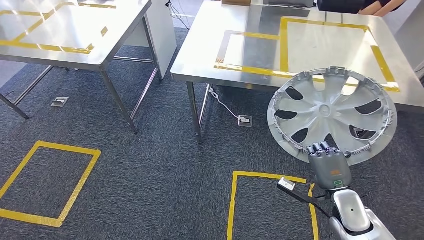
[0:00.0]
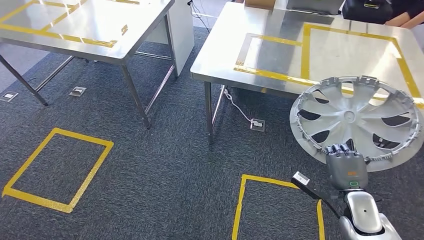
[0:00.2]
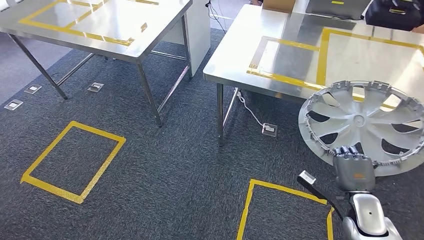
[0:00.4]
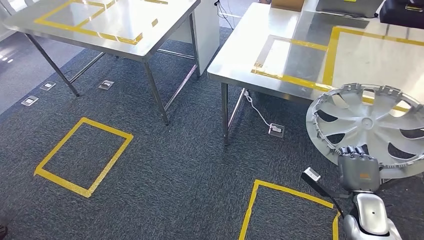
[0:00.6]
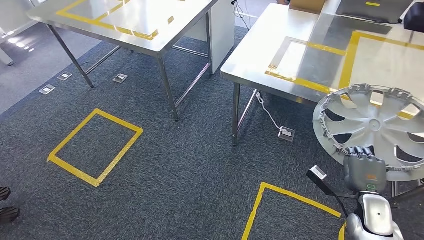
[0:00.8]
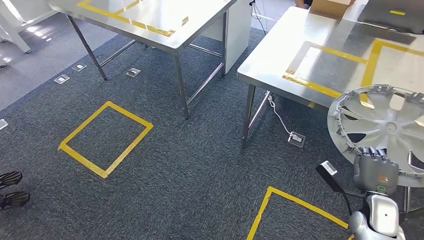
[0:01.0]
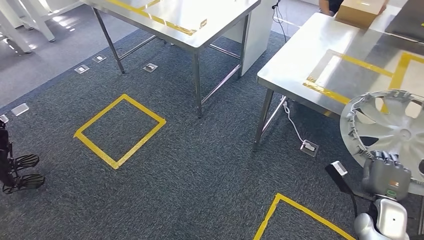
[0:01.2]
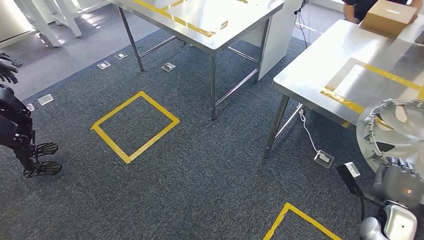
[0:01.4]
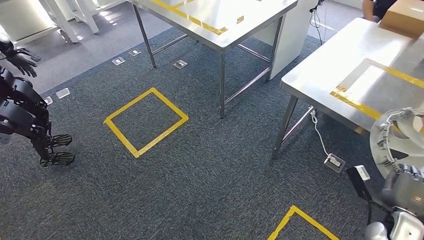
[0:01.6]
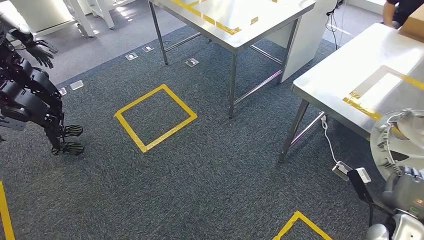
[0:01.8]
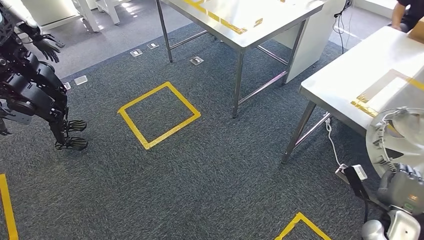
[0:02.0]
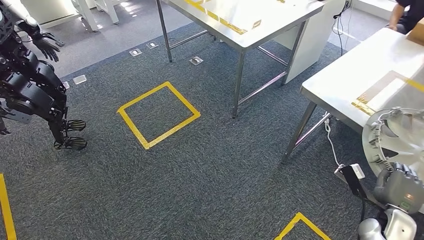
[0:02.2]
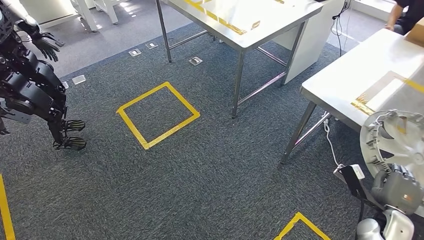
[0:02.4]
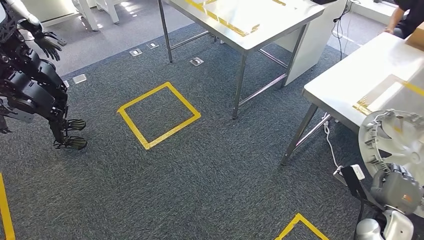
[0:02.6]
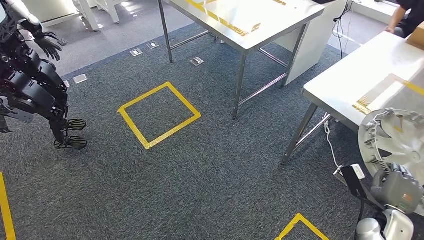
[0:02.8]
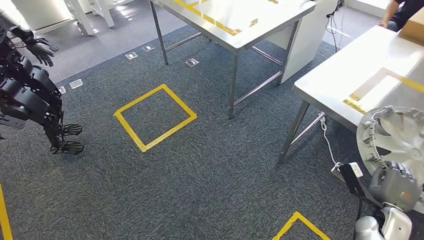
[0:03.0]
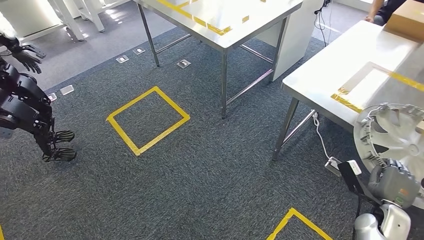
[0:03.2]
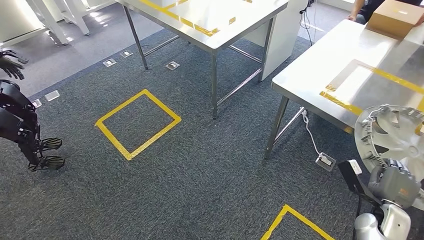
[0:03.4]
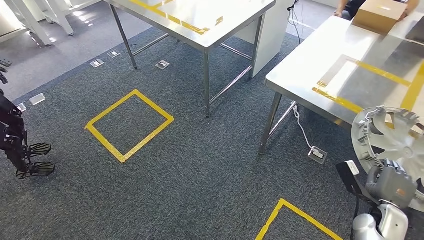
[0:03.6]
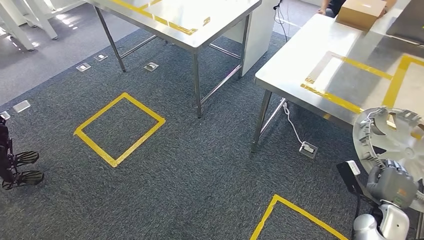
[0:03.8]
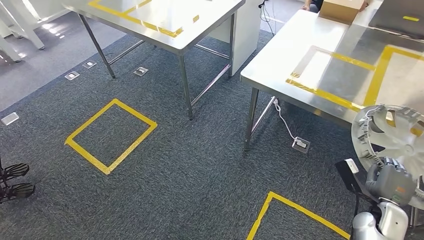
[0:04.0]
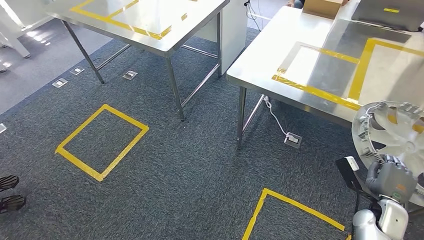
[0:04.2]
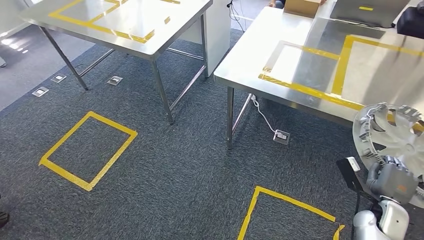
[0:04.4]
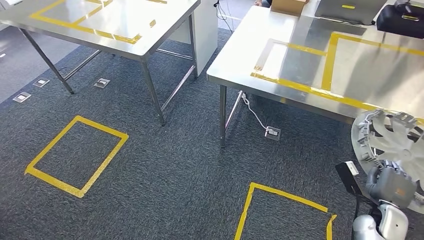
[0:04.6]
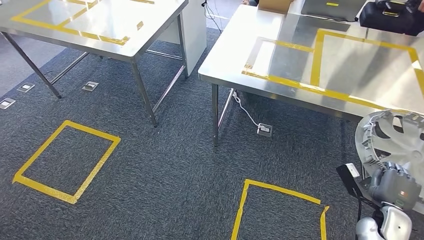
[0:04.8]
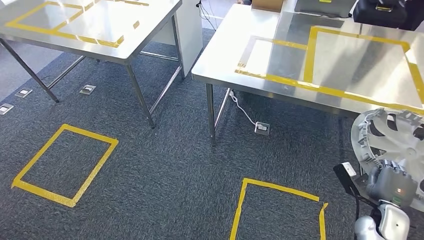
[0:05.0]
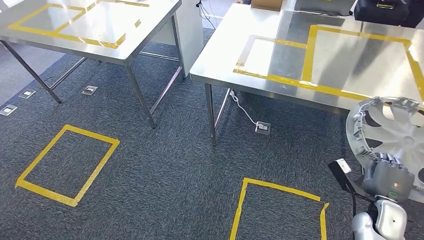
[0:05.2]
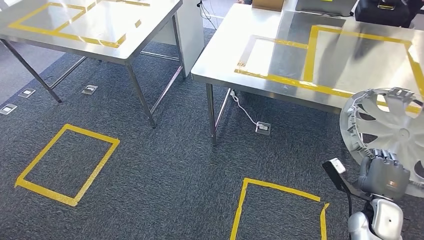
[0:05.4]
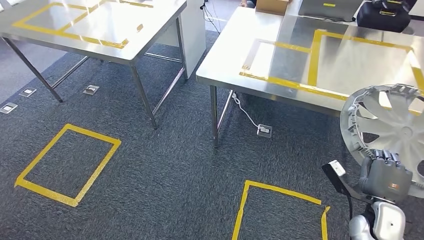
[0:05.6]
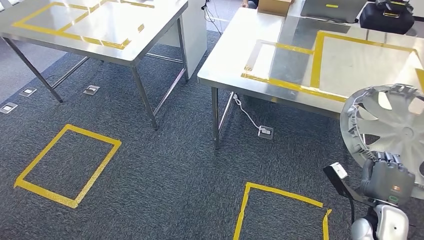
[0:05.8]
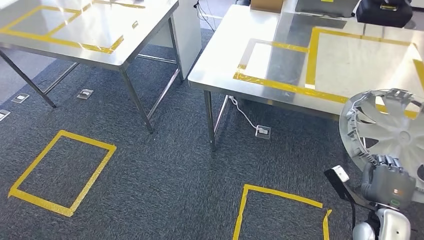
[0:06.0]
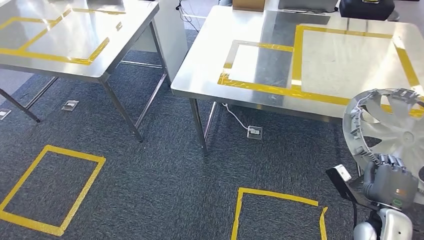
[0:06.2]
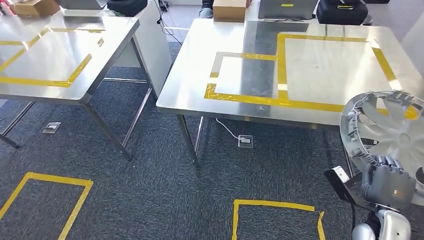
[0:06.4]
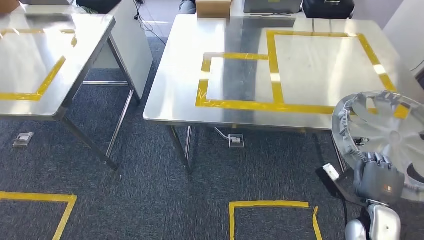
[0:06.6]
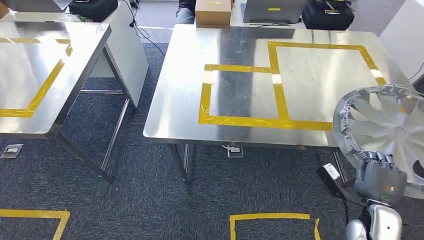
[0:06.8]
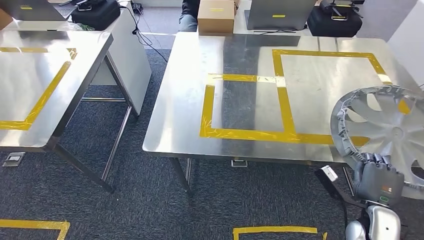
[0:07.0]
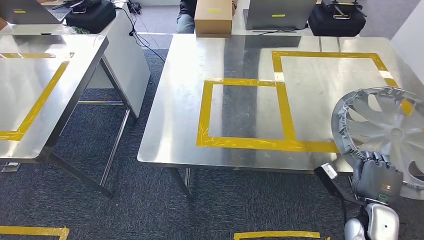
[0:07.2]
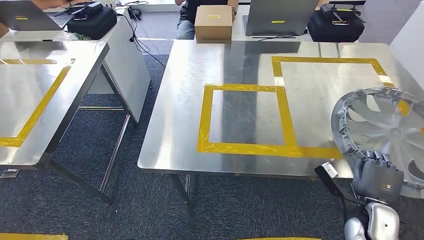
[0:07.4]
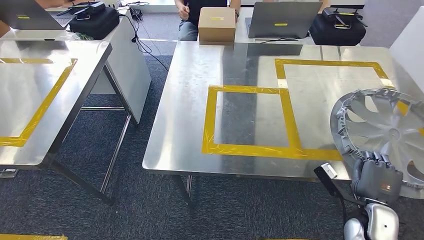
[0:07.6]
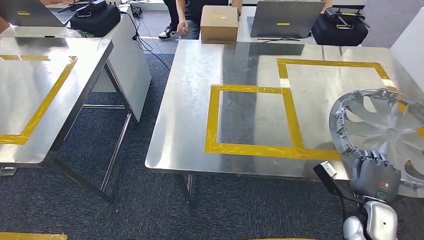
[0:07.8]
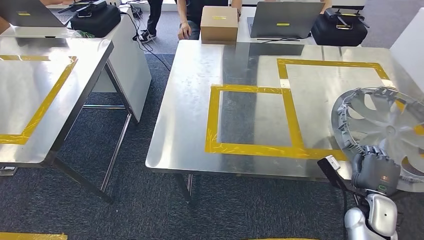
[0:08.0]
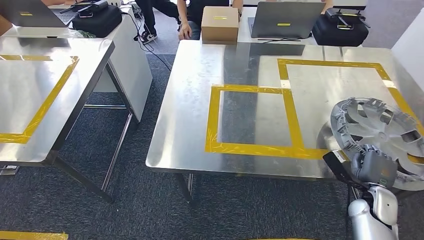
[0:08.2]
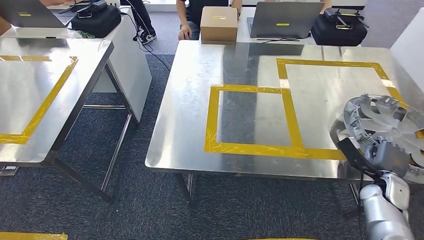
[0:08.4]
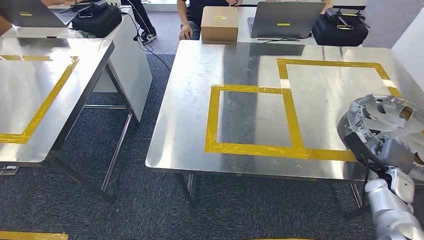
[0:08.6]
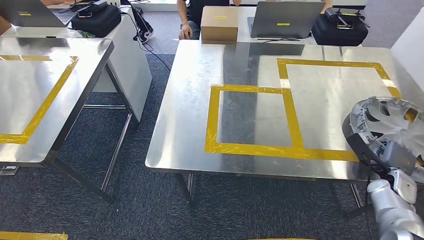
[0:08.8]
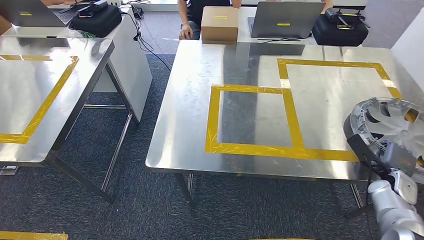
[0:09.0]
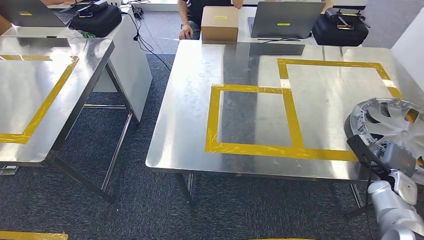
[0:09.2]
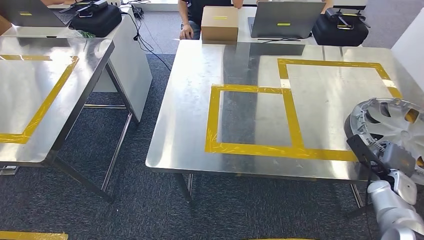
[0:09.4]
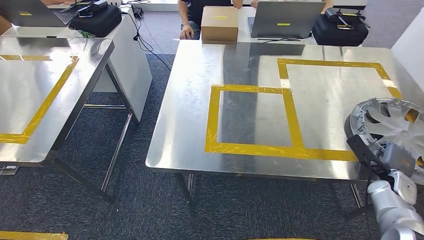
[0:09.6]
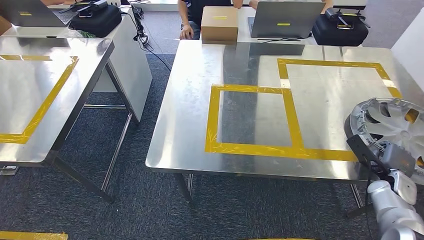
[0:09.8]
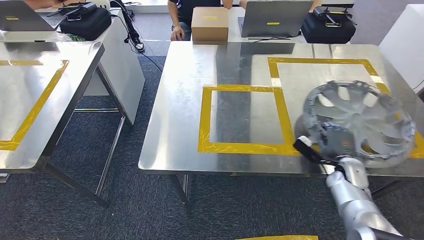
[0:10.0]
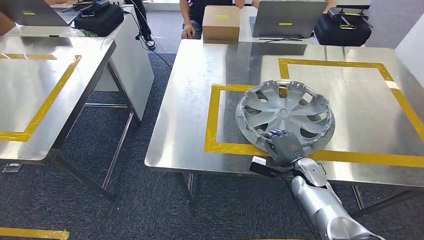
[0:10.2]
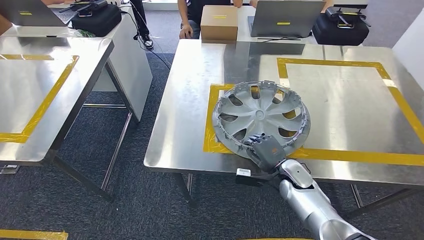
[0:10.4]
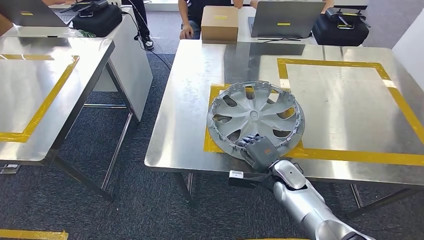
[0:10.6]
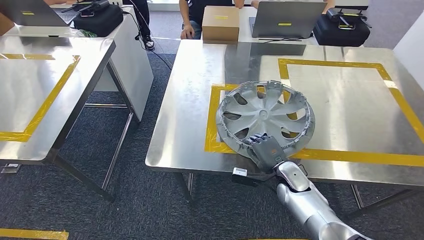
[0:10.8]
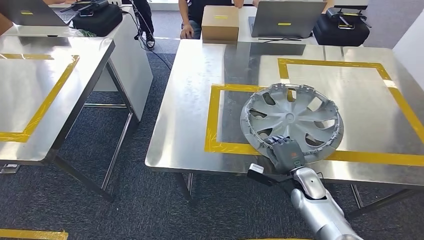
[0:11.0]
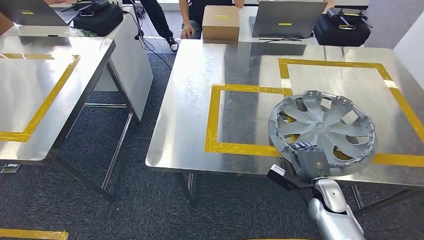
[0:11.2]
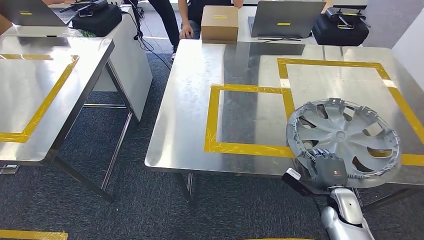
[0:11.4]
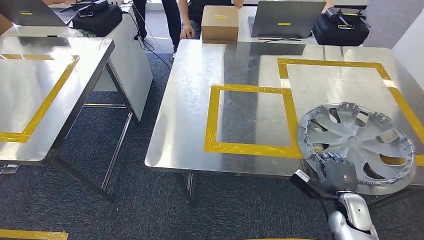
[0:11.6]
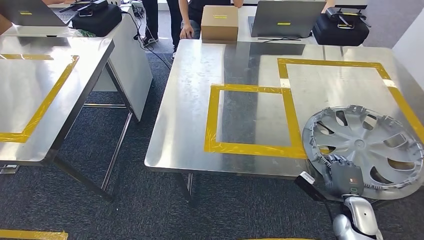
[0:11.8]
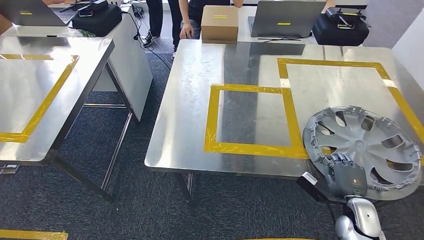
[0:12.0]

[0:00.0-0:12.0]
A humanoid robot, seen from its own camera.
Step, 0:00.0 to 0:06.8: Bring the small component to the front of the workbench.
0:07.6 to 0:09.0: The right hand goes about 15 cm to the right and forward.
0:10.4 to 0:12.0: The right hand heads to the right and backward, covering roughly 20 cm.

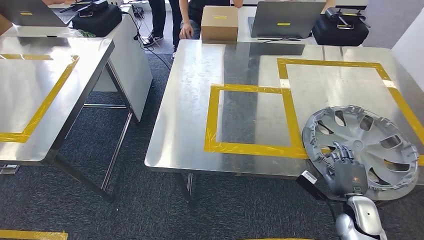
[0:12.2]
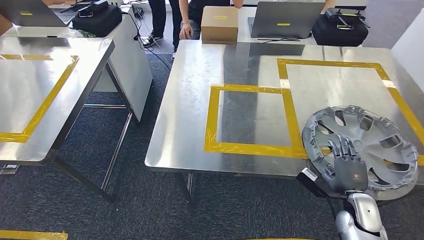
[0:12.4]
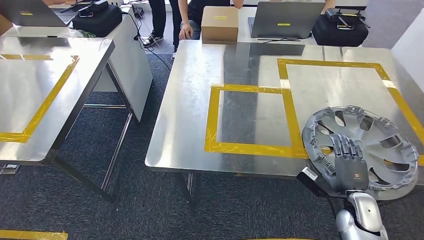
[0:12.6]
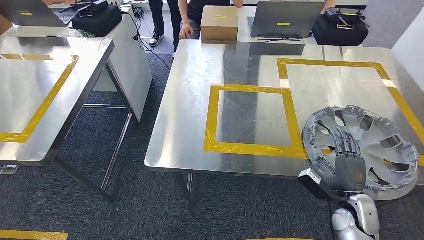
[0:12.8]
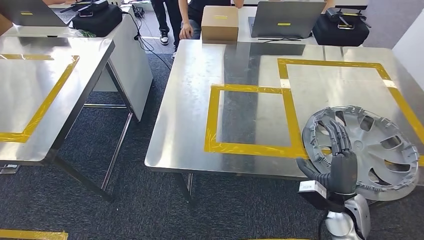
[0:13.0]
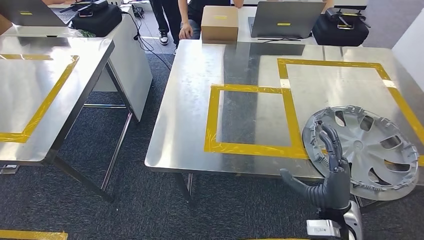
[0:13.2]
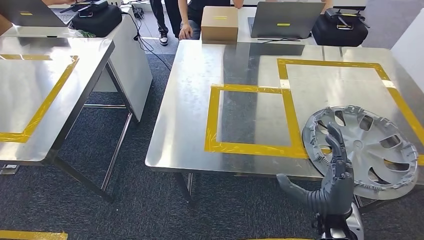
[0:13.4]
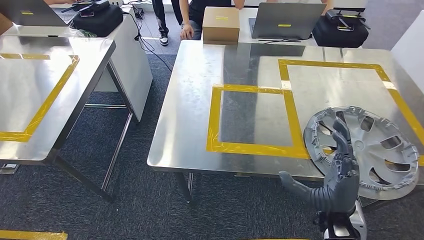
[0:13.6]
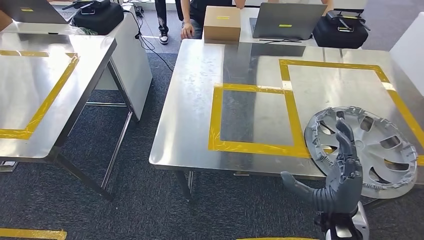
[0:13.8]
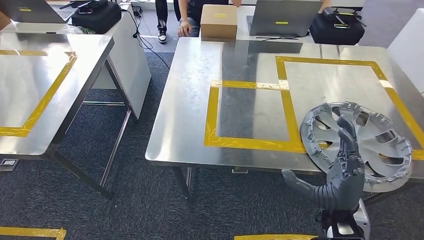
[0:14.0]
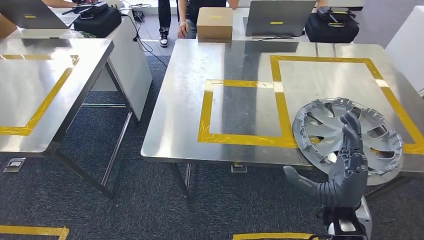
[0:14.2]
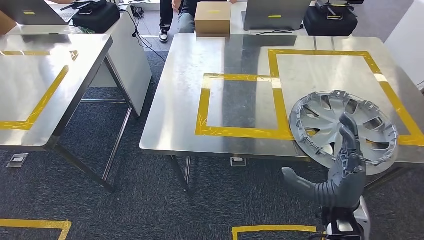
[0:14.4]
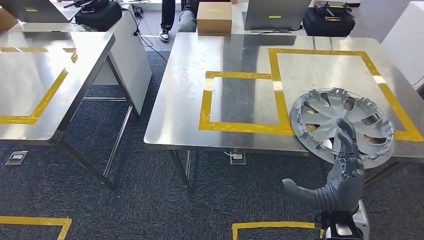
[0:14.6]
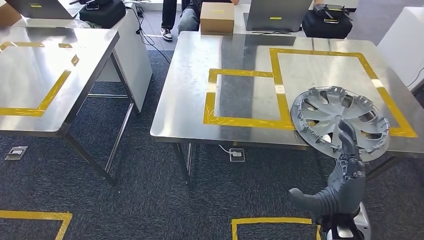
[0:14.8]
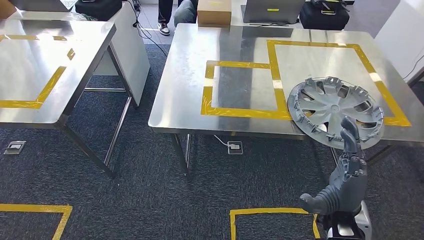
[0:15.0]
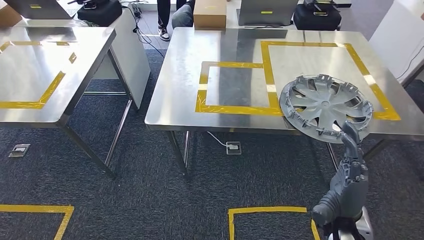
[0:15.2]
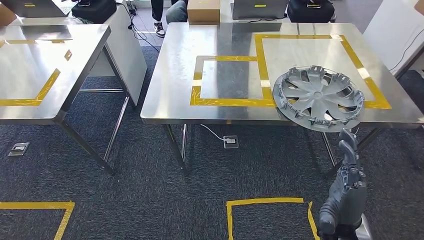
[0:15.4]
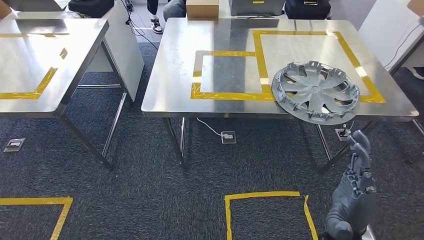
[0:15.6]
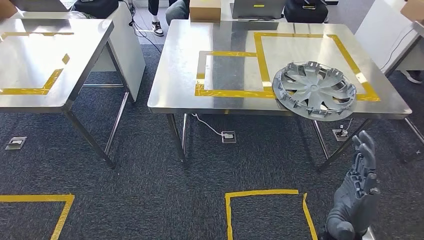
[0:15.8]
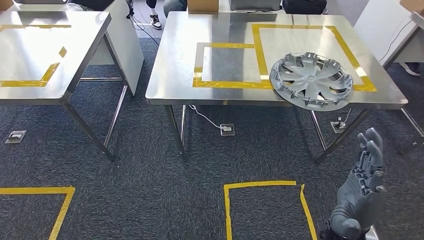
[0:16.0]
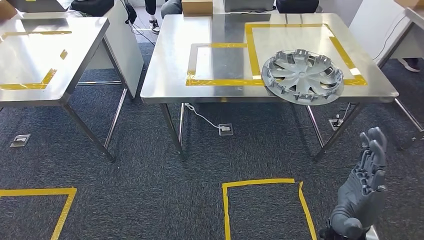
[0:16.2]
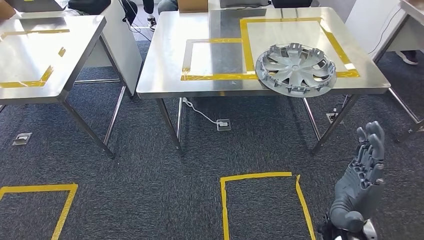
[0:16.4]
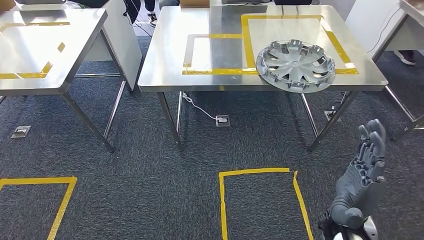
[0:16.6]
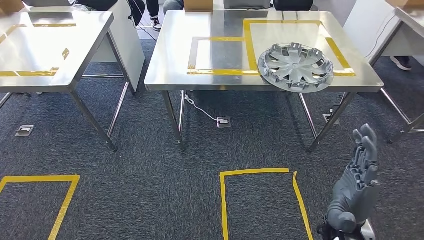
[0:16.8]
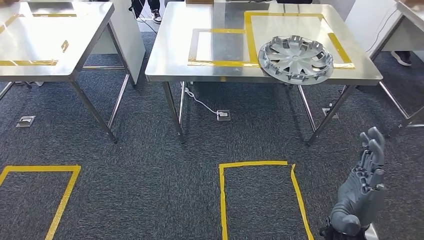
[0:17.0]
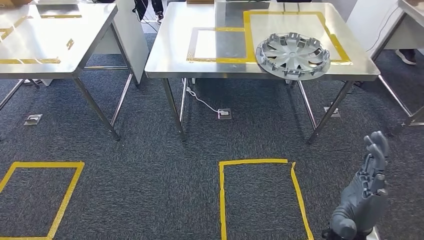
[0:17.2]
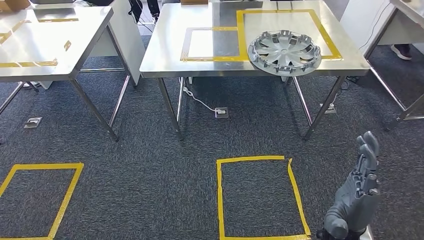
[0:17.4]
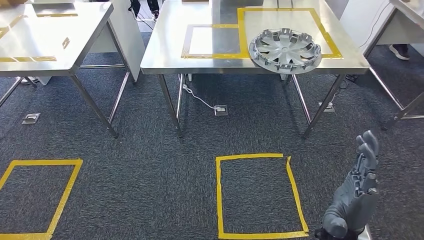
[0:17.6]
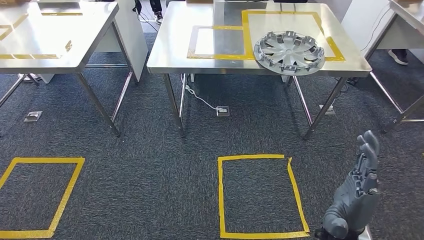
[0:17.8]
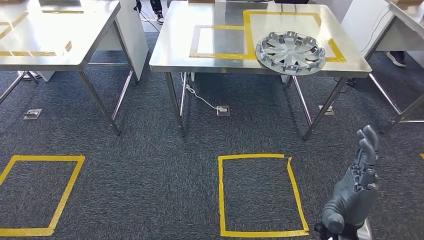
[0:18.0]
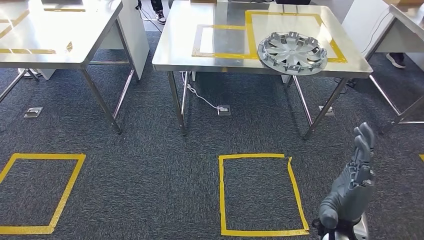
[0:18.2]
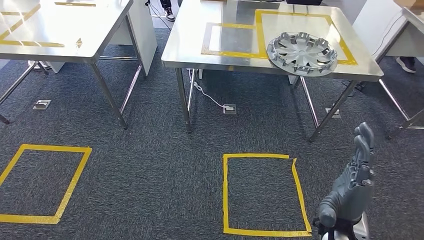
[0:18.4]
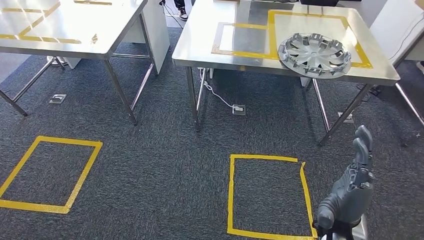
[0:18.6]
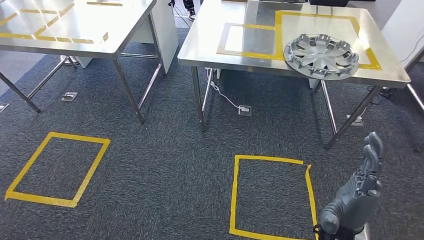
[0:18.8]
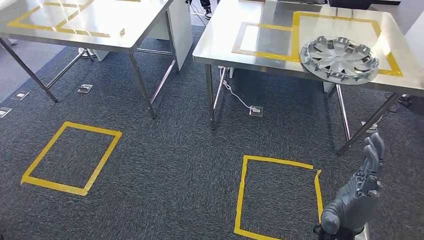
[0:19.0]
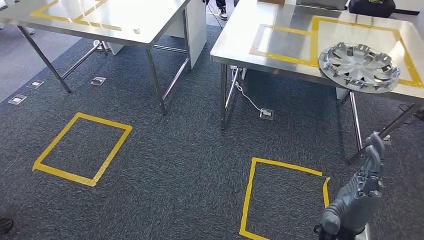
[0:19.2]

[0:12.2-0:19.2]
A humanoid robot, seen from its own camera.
0:12.2 to 0:13.6: The right hand is displaced upward and to the left by some 20 cm.
